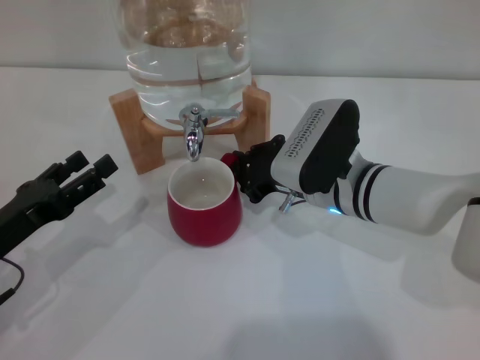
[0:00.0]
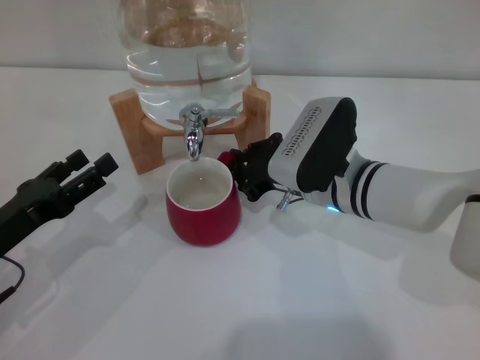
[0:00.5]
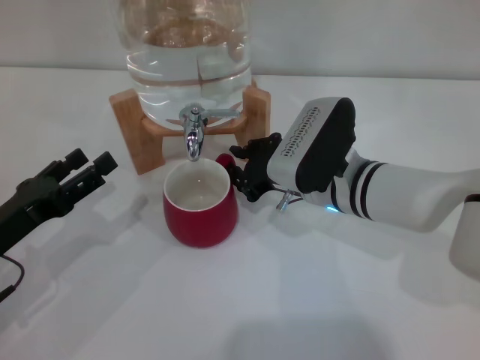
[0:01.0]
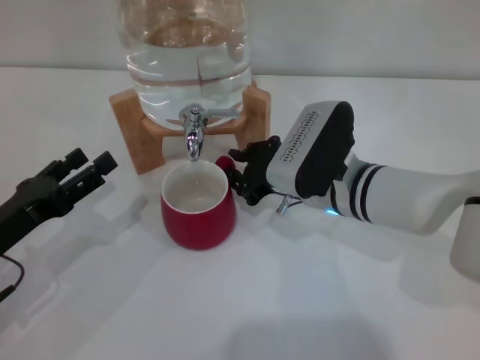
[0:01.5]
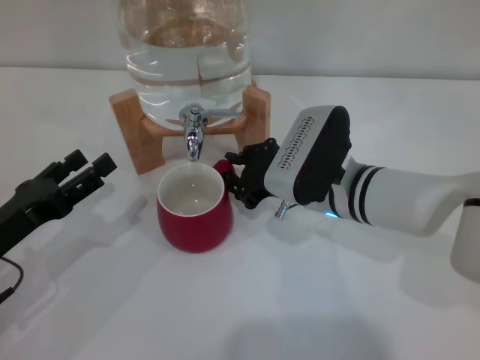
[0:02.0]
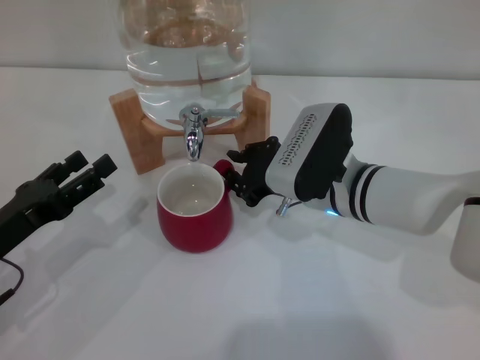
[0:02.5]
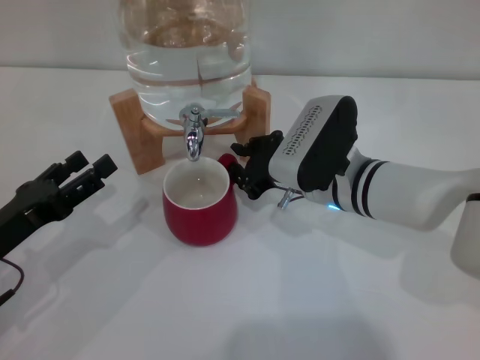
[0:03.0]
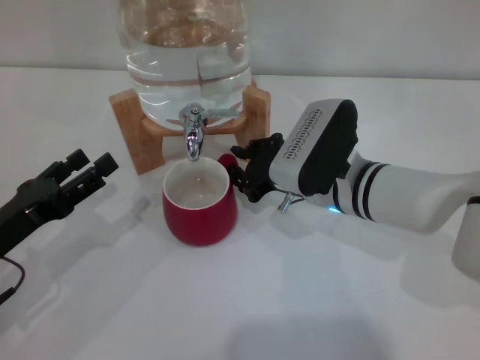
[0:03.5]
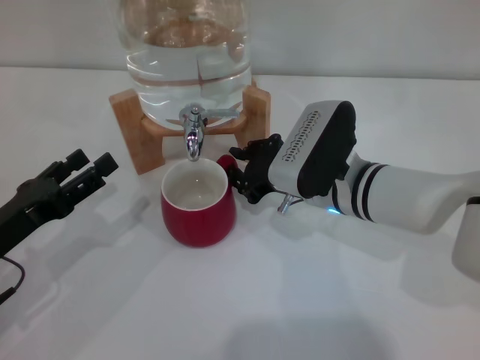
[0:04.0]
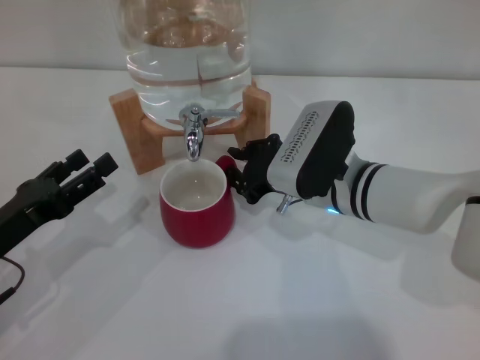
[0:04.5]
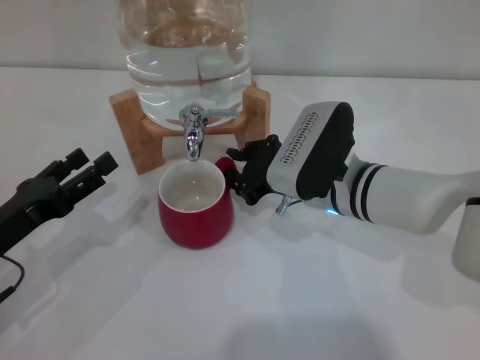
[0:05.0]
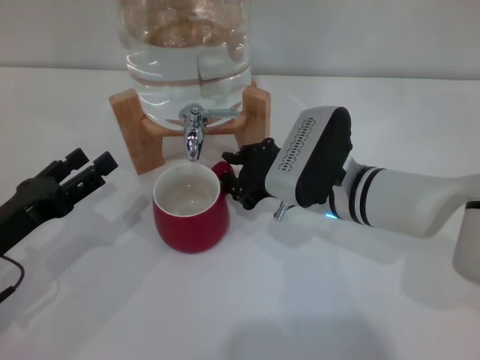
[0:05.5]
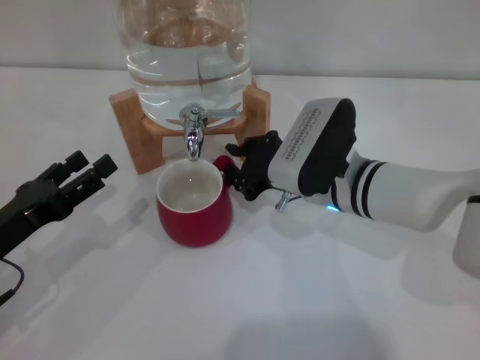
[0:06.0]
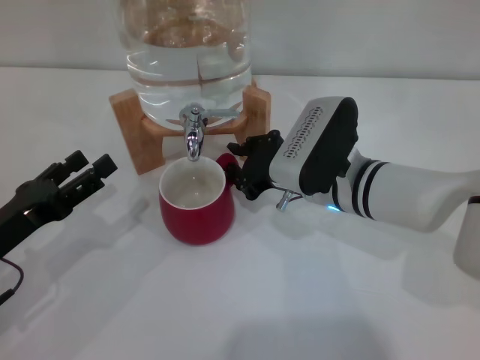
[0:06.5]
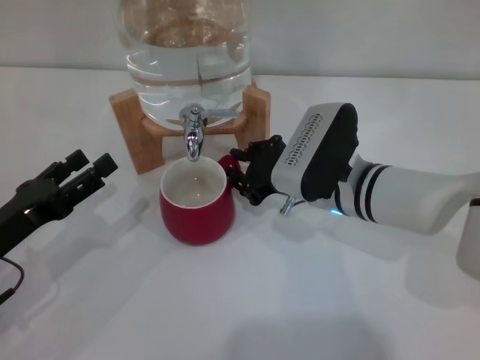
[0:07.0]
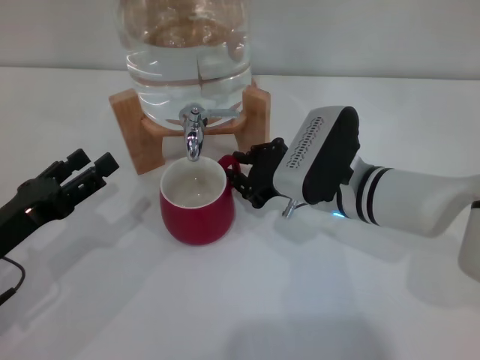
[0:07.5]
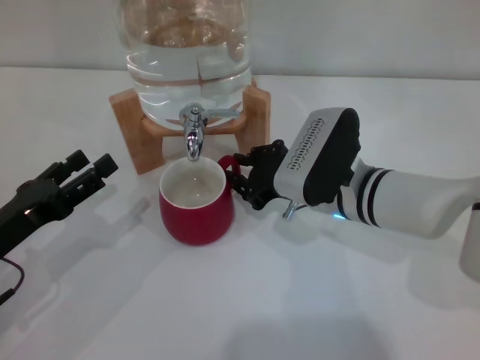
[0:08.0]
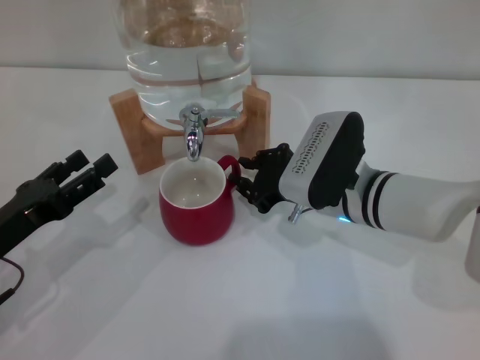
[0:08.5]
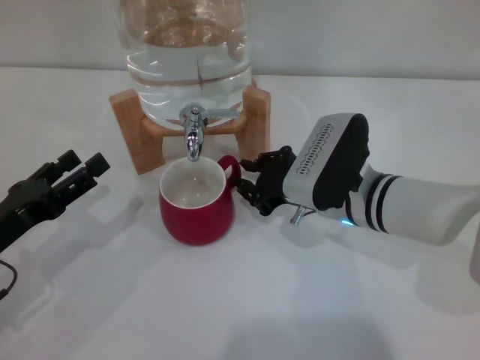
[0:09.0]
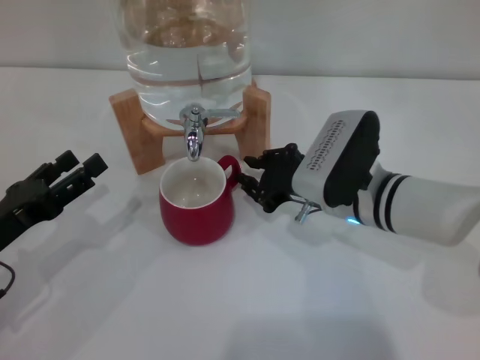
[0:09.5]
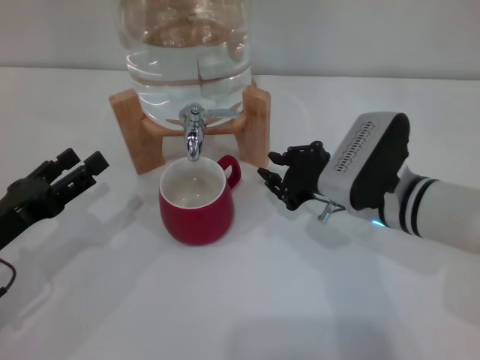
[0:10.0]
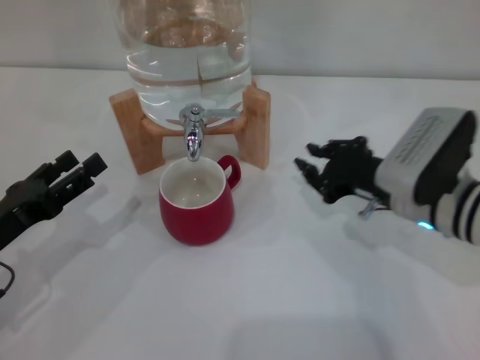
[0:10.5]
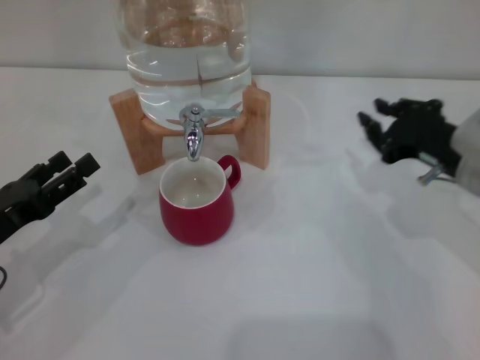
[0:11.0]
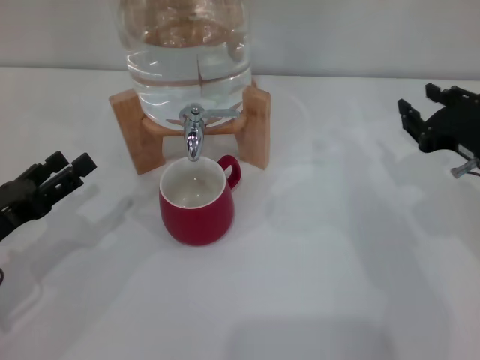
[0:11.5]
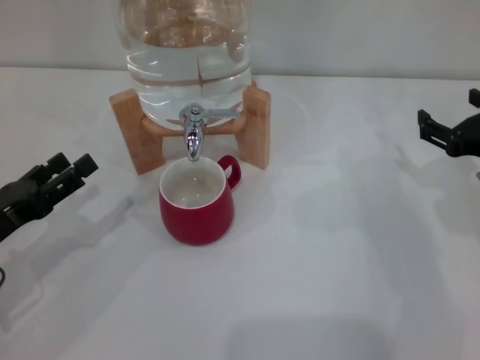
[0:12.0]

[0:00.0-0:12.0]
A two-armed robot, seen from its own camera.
Task of the whole recording: the right gripper pick up the red cup and place it horizontally under the faucet, the left gripper turn on the faucet to fill the cup, and then turn off the faucet.
Step, 0.0 to 9.5 s: Move the cup beneath the water dispenser nozzle with the right gripper.
0.0 to 4.0 s: Neither gripper changes place.
4.0 to 8.0 s: The two grippers keep their place.
8.0 to 10.0 s: There are only small adjustments of the grippers.
10.0 to 12.0 s: The right gripper travels to the right by roughly 15 cm, and opens.

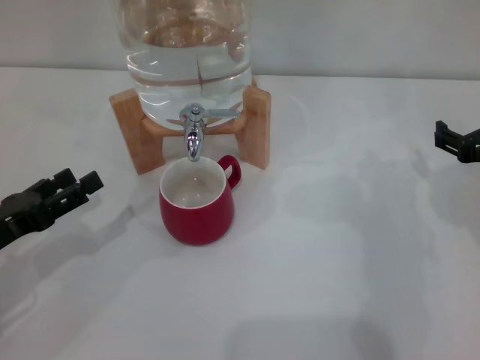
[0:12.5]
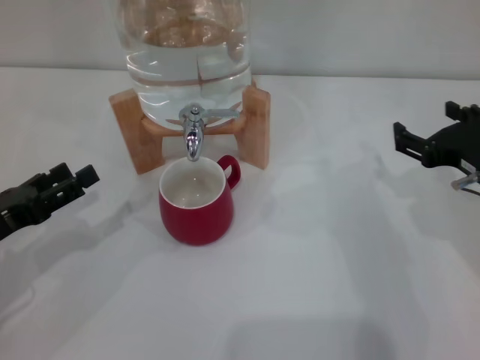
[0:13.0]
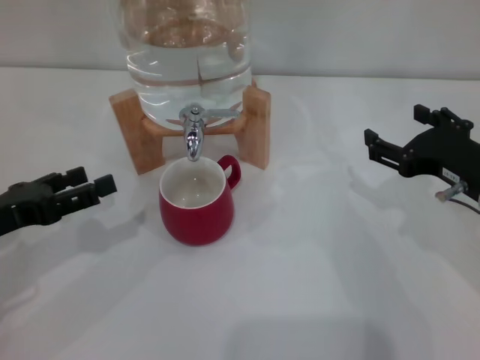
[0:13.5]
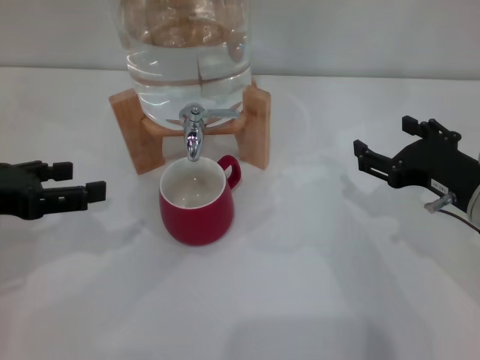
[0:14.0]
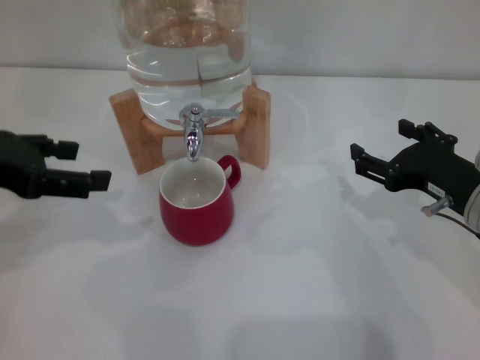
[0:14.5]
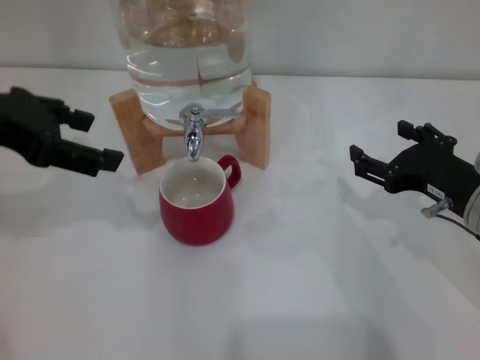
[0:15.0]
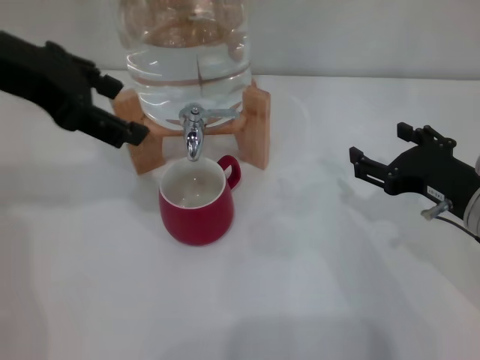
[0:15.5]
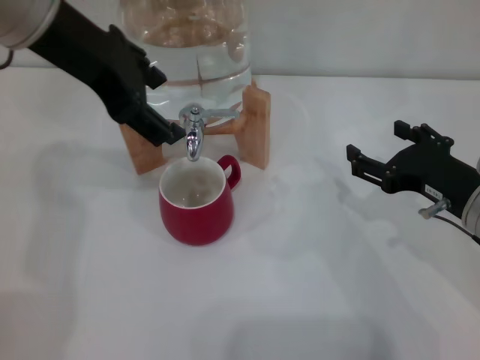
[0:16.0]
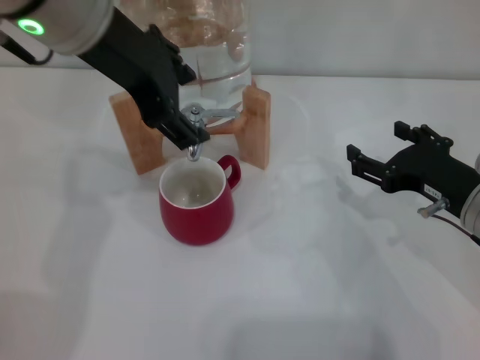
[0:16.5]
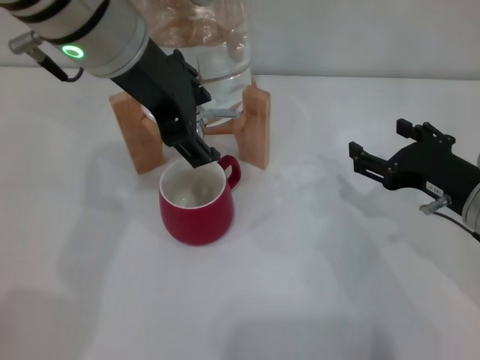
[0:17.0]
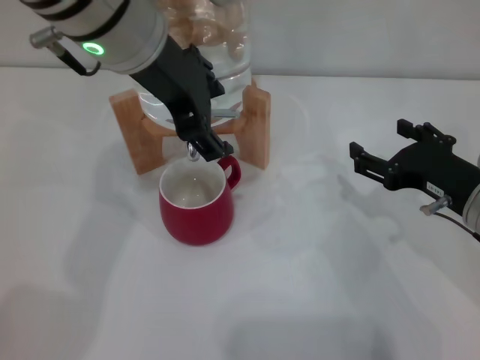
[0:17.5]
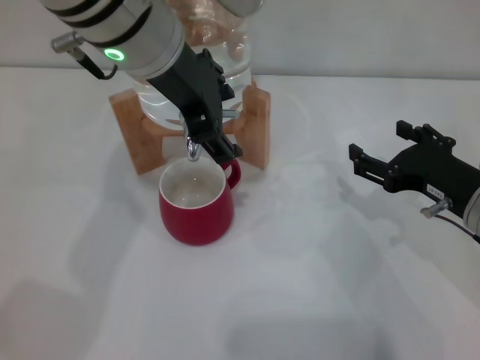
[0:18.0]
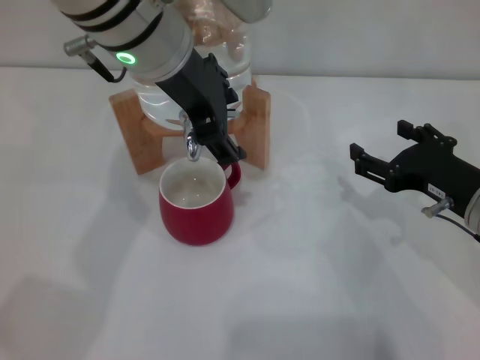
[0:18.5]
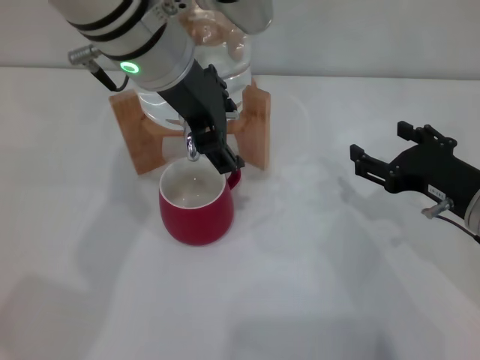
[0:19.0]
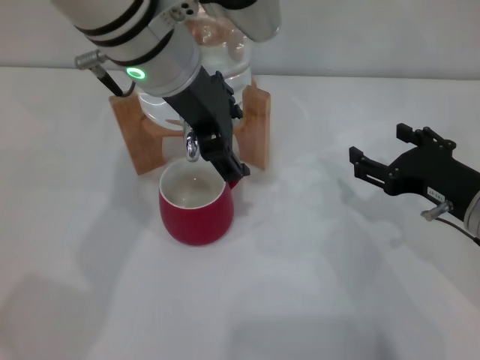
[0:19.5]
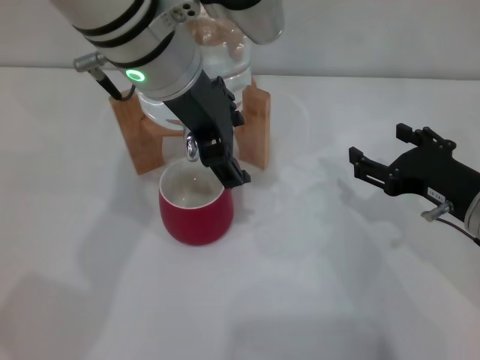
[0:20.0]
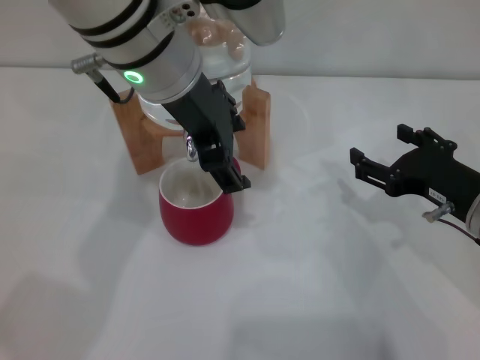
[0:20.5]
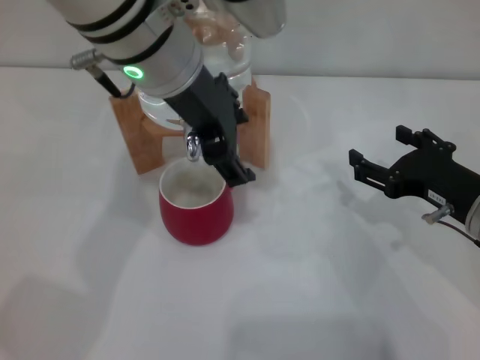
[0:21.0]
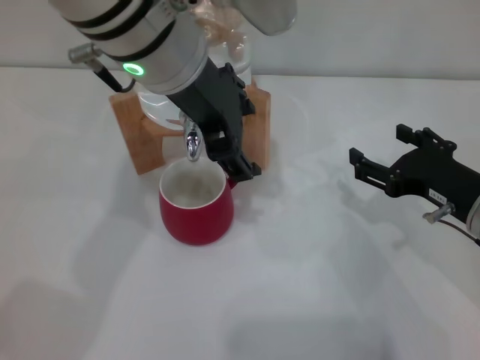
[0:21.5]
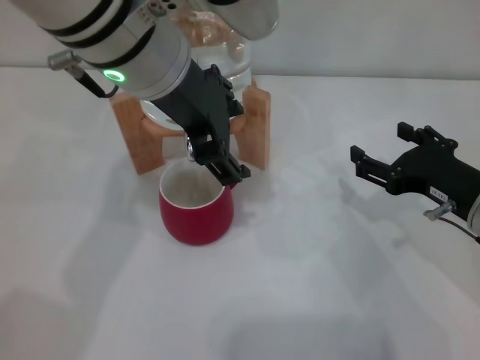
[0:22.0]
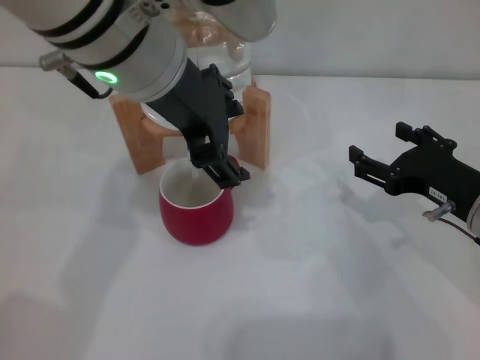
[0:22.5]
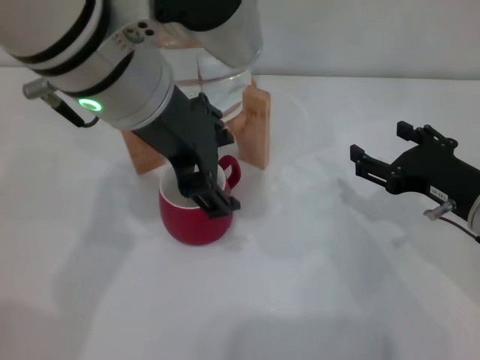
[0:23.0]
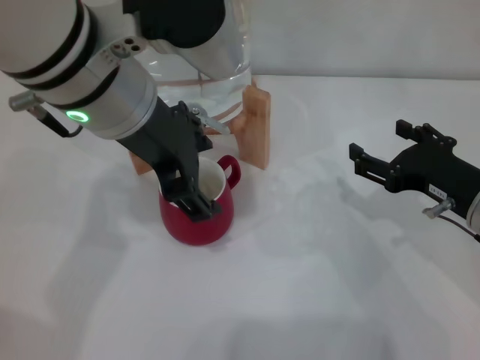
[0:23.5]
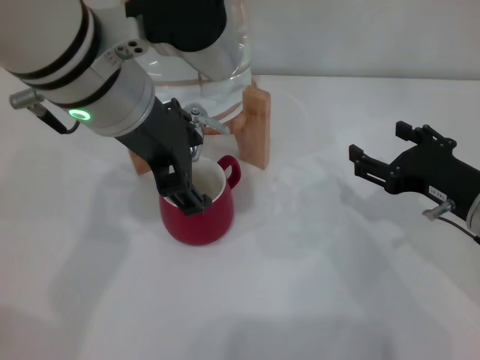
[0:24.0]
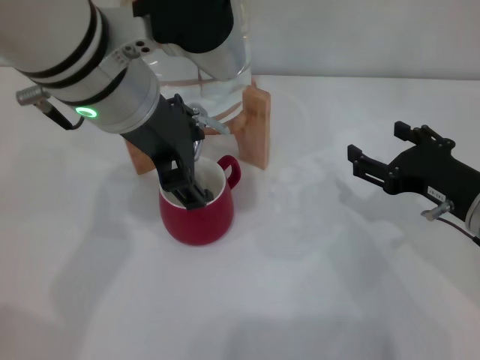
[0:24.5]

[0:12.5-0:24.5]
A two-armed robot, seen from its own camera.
Task of the whole recording: the right gripper pick up the red cup and place it horizontally under the faucet, the left gripper turn on the faucet to fill the cup, and then turn off the faucet.
12.5 to 14.5 s: The left gripper heads upward, covering about 15 cm. The right gripper shifts by some 5 cm.
14.5 to 16.5 s: The left gripper goes about 20 cm to the right, upward and forward.
16.5 to 18.5 s: The left gripper ends up approximately 5 cm from where it was.
18.5 to 22.5 s: The grippers stay close to where they were, moving slightly.
22.5 to 24.5 s: The grippers make only small movements.

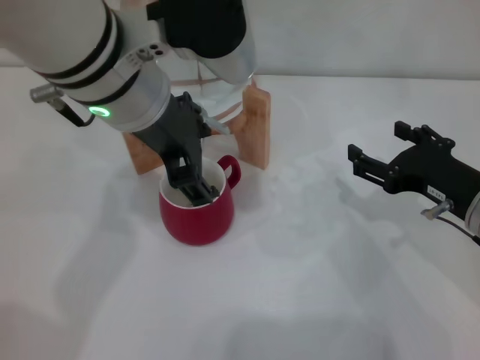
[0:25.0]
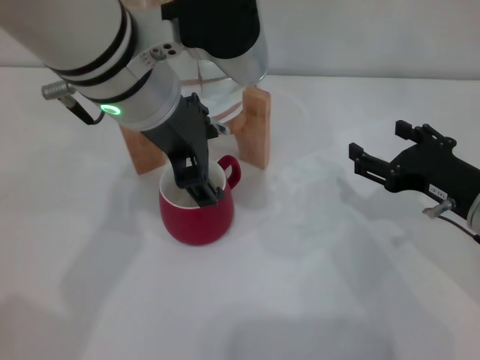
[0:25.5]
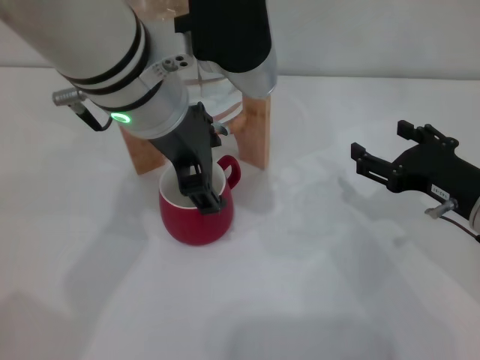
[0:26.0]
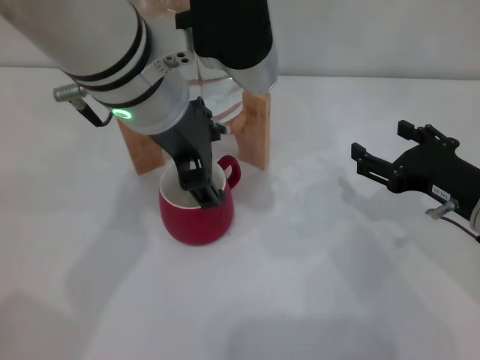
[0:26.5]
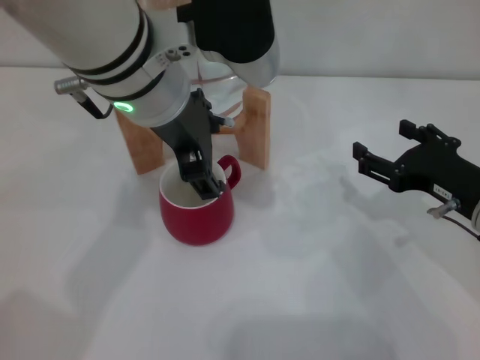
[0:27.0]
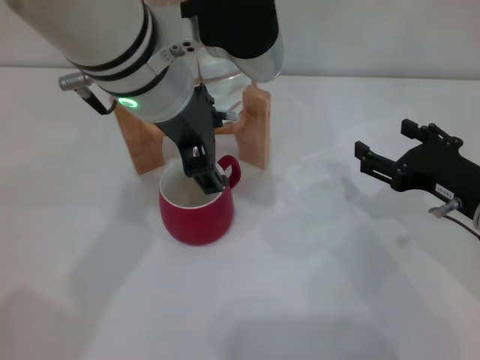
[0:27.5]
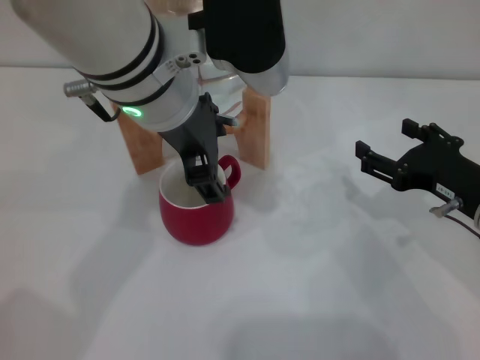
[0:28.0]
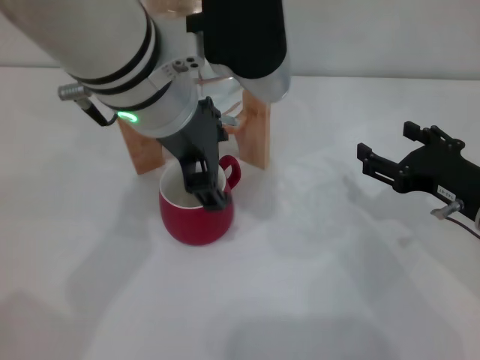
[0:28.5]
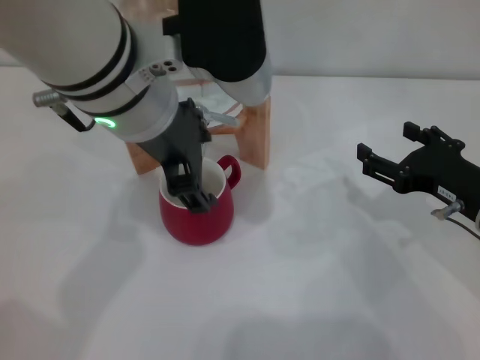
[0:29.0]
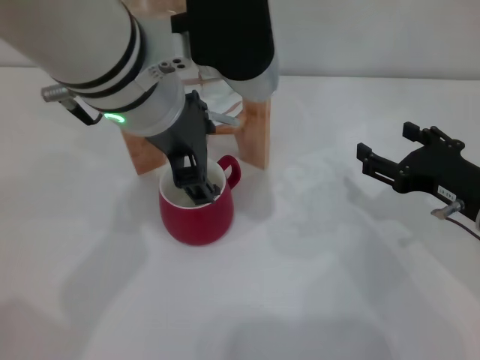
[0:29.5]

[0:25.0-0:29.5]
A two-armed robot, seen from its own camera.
Task of the whole recording: the right gripper pick up the red cup and place it horizontally under the faucet, the left gripper turn on the faucet to fill the cup, and then turn off the faucet.
25.0 to 29.5 s: The grippers stay close to where they were, moving slightly.
